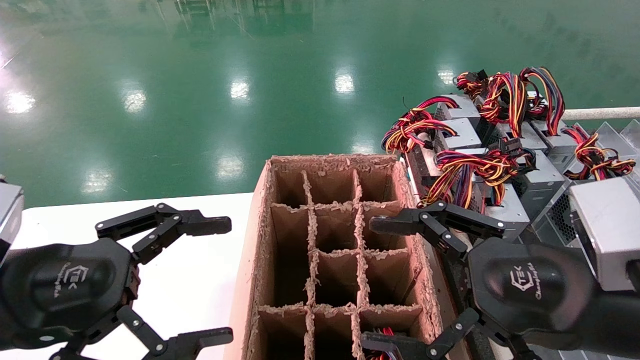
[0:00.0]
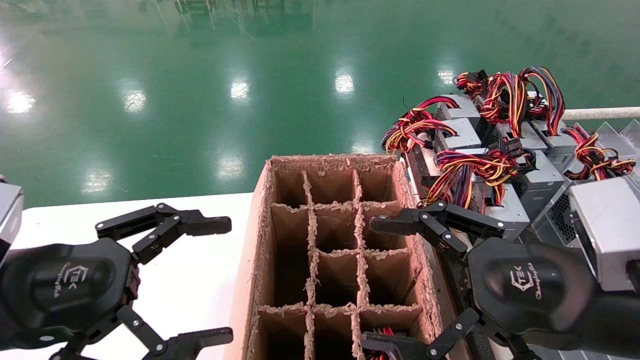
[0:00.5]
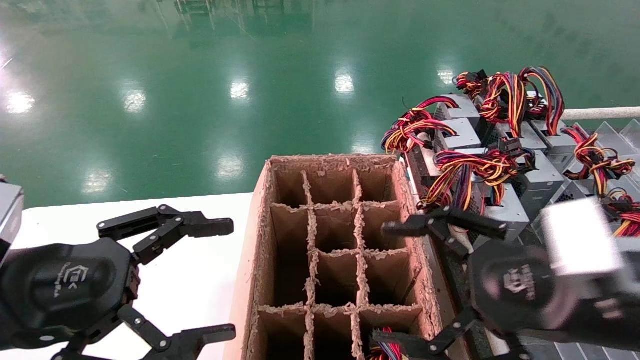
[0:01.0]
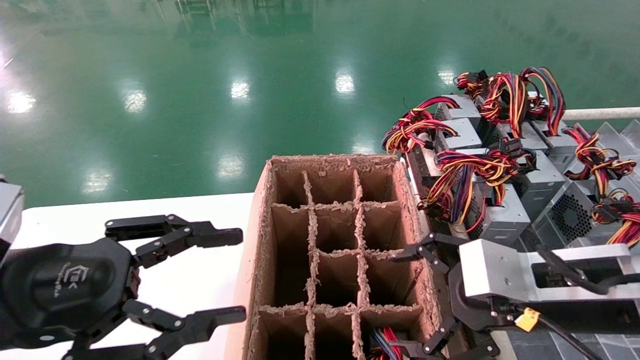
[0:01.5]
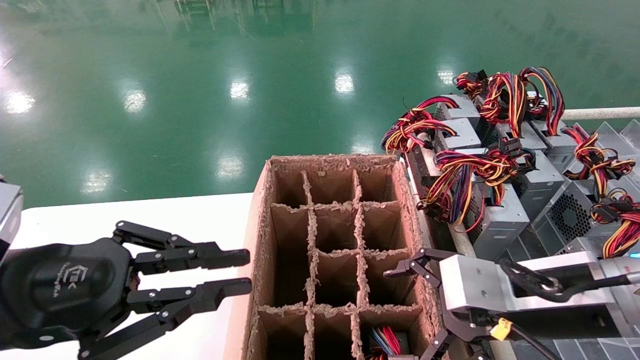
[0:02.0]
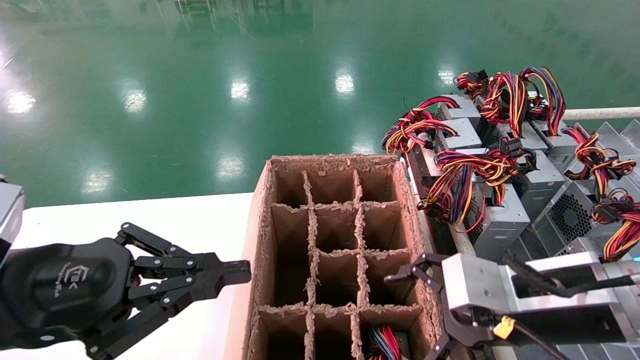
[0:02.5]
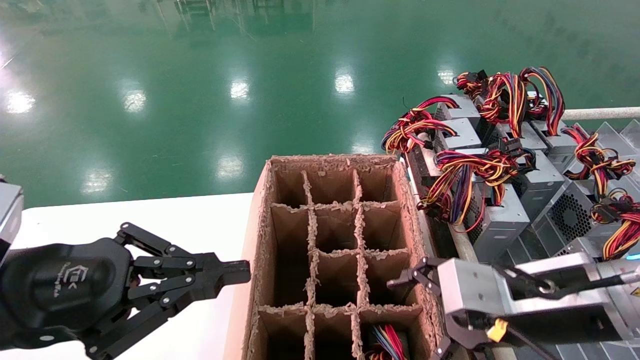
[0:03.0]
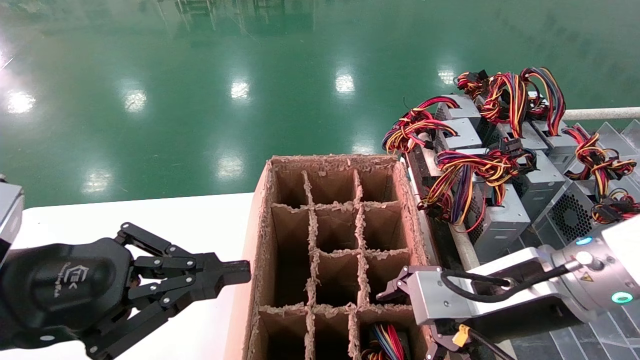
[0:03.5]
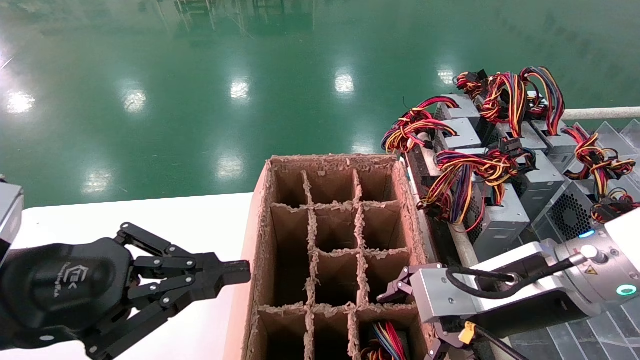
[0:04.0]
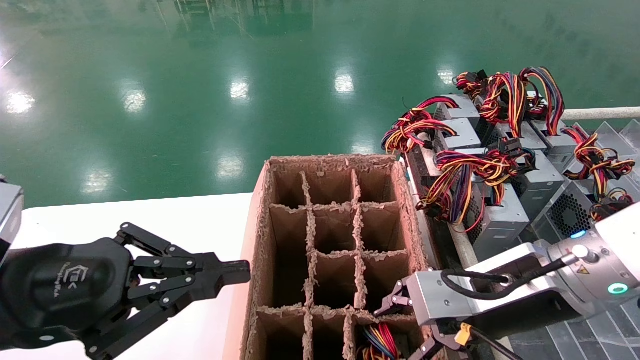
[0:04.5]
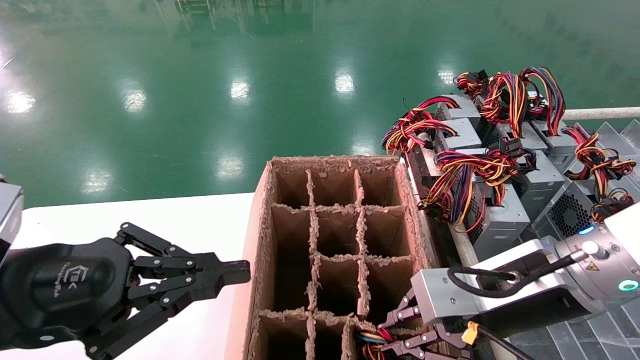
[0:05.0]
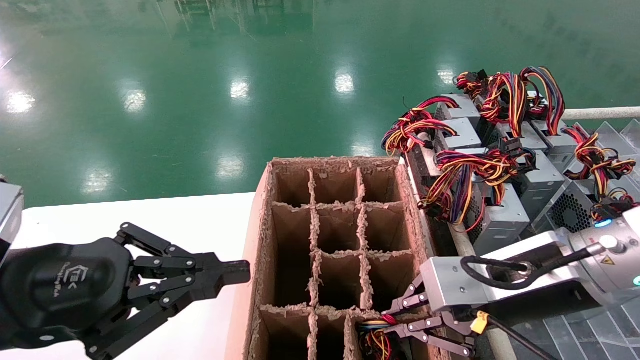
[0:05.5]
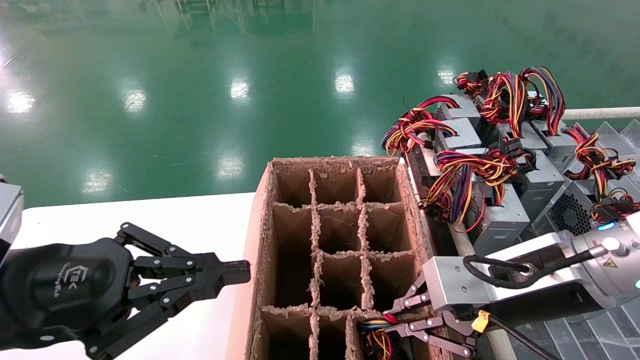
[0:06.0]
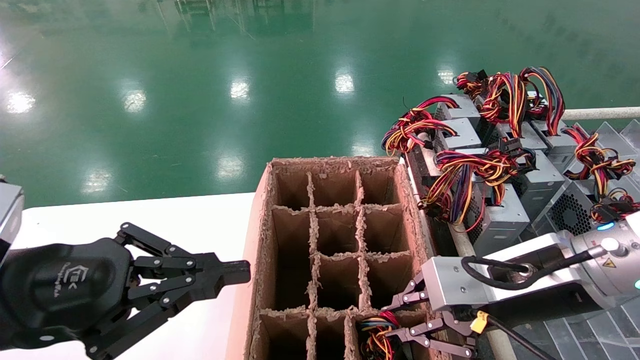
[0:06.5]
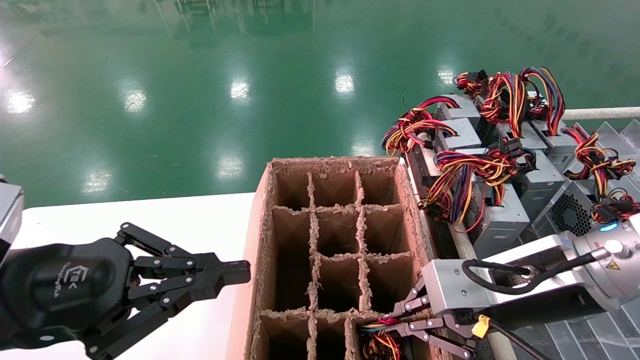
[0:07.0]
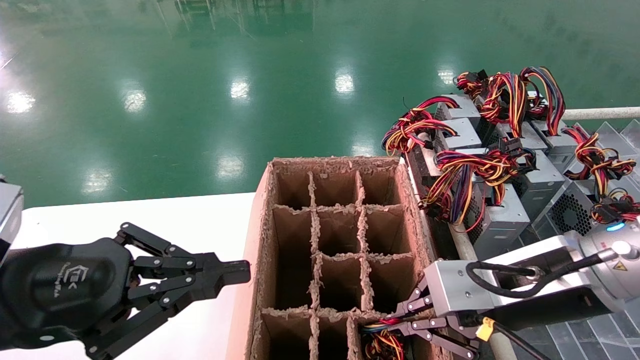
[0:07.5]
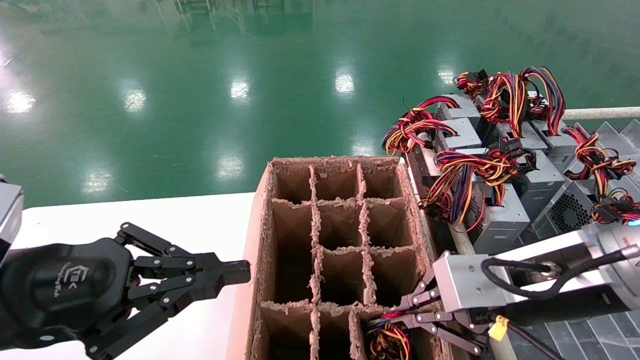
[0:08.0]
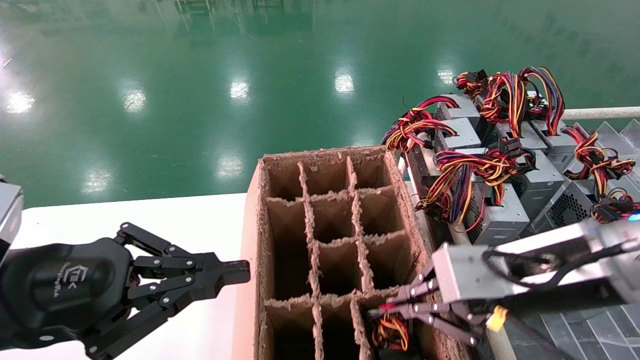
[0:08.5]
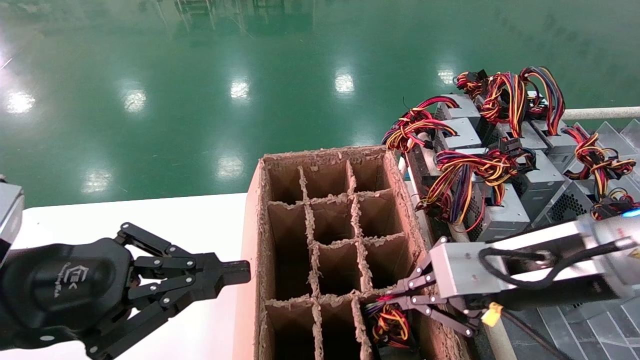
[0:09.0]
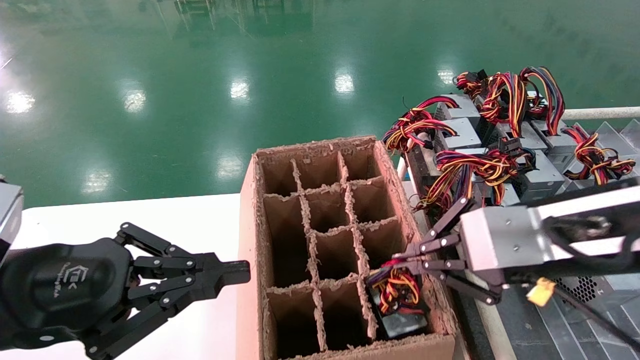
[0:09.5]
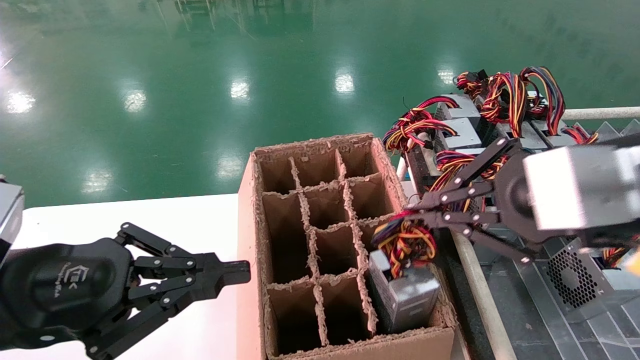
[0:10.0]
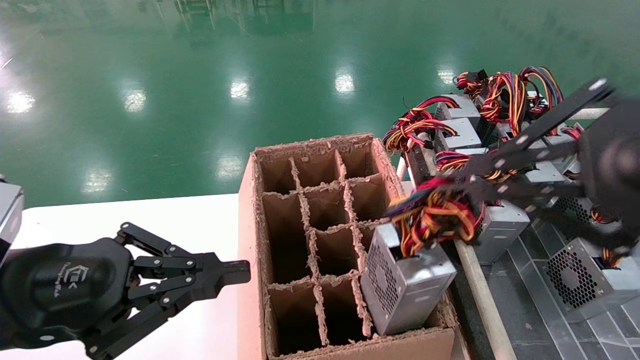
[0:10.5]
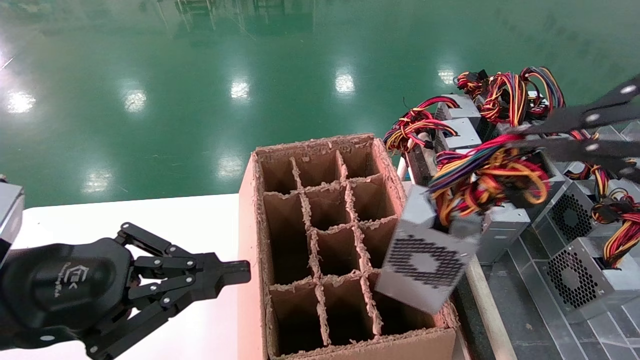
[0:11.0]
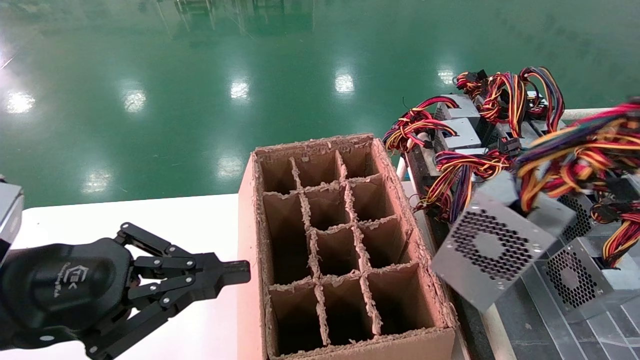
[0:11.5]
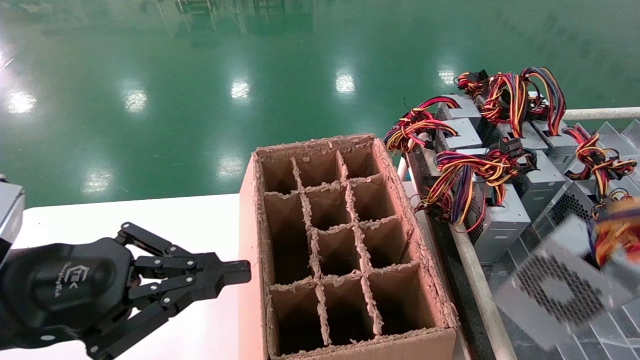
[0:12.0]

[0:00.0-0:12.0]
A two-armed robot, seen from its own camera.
Step, 0:01.5 to 0:07.5: Grab the main unit power supply from the containment box.
0:00.0 to 0:02.0: The right gripper travels forward by roughly 5 cm; the left gripper closes.
0:02.0 to 0:04.0: The grippers move only a little.
0:04.0 to 0:06.0: The right gripper closes up.
0:06.0 to 0:08.0: There are only small adjustments of the grippers.
0:08.0 to 0:10.0: The right gripper is displaced upward and backward by approximately 10 cm.
0:10.0 to 0:12.0: The right gripper travels backward and to the right by roughly 25 cm.

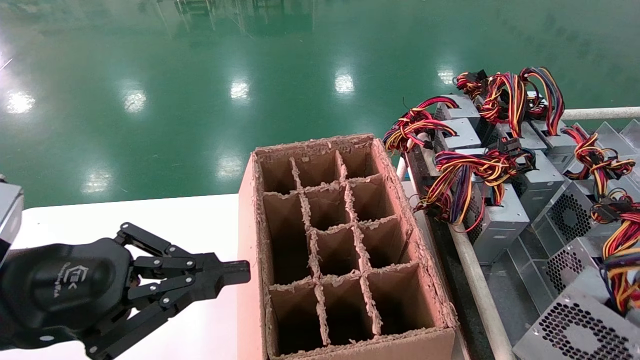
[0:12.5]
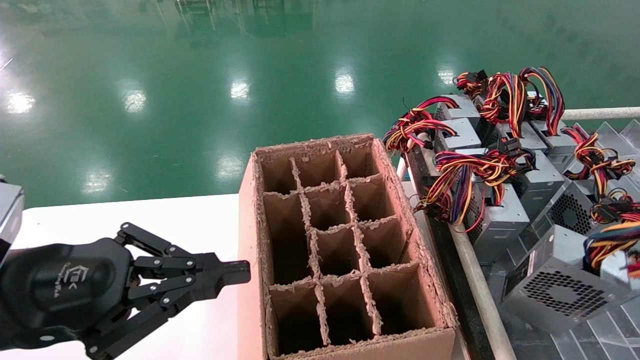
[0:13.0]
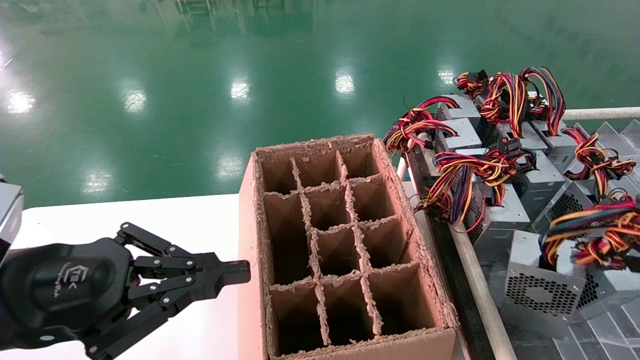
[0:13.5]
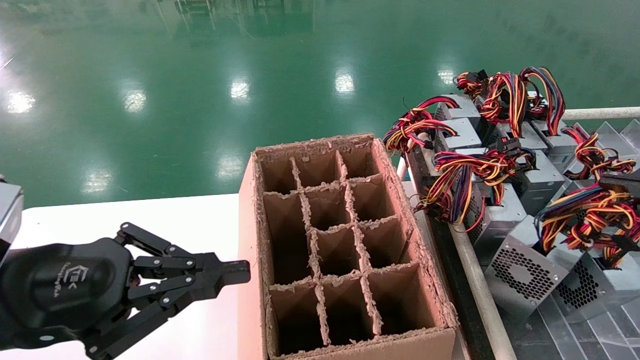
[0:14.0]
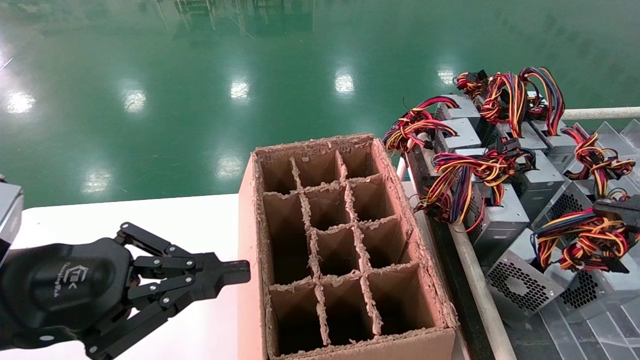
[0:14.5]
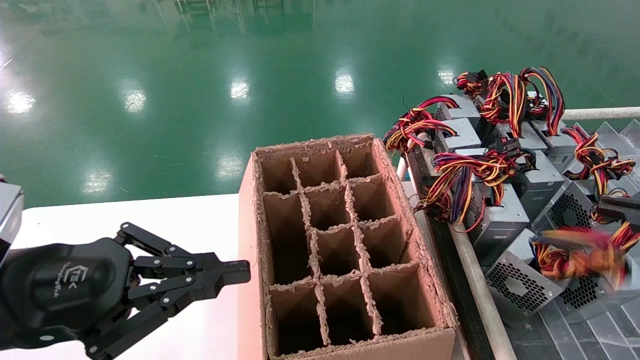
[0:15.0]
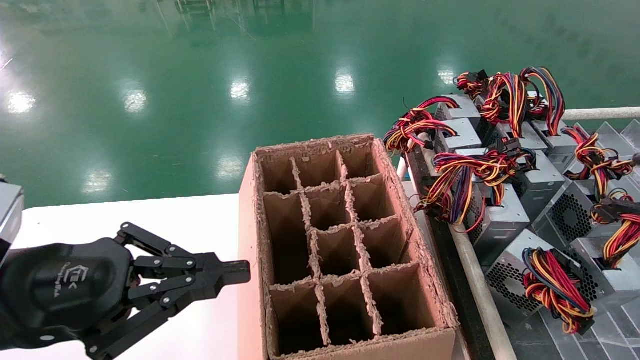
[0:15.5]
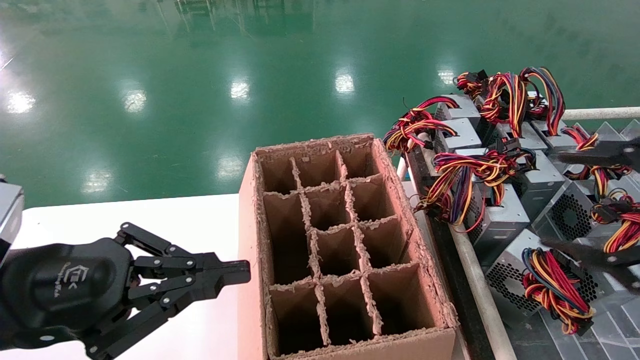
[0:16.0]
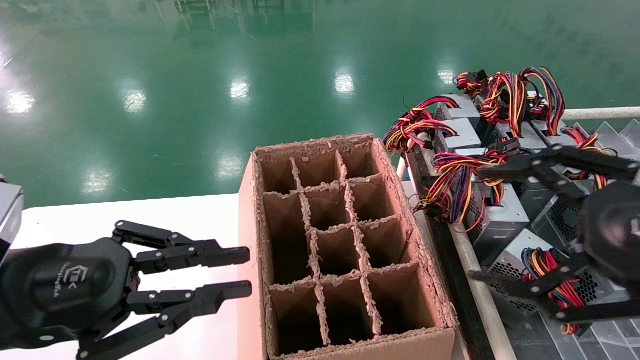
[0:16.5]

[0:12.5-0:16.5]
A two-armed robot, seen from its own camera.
Step, 0:12.5 to 0:15.0: Place the main unit power supply in the designated area.
0:12.5 to 0:14.5: The right gripper goes about 10 cm forward.
0:14.5 to 0:16.5: The right gripper moves to the left, about 10 cm, and opens.

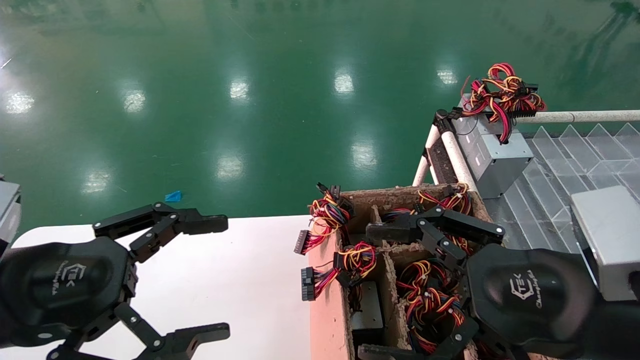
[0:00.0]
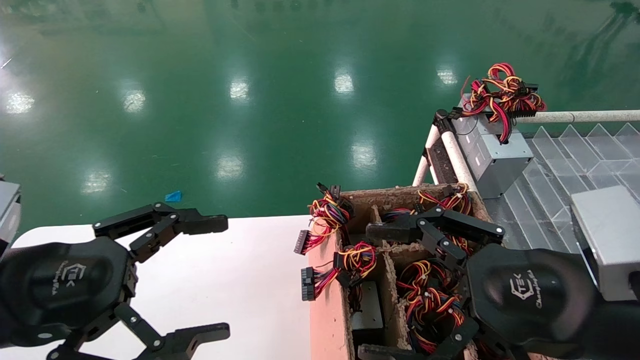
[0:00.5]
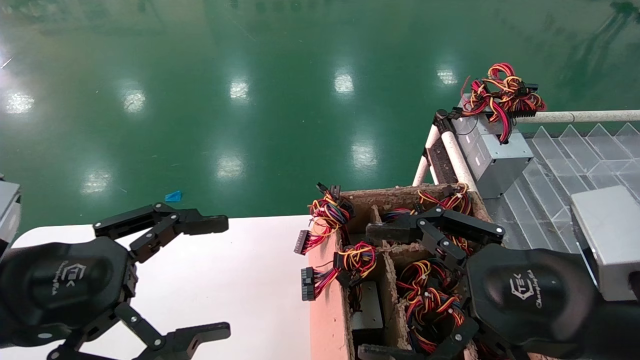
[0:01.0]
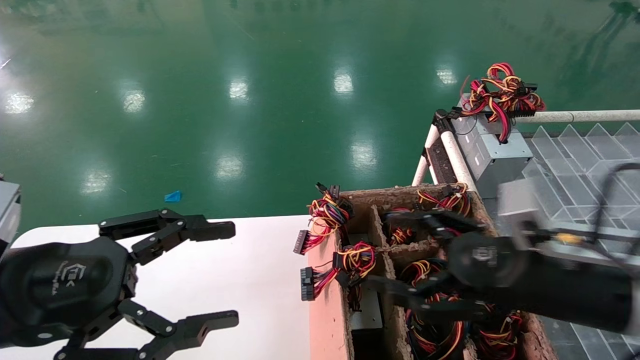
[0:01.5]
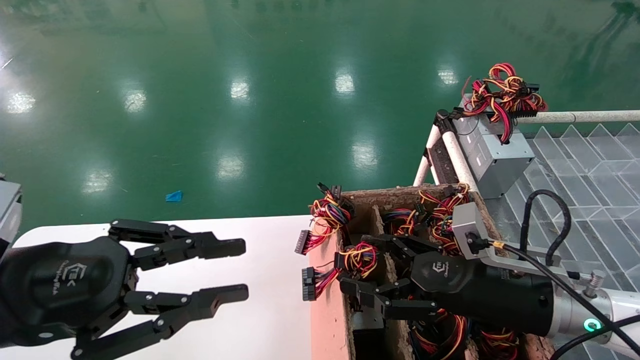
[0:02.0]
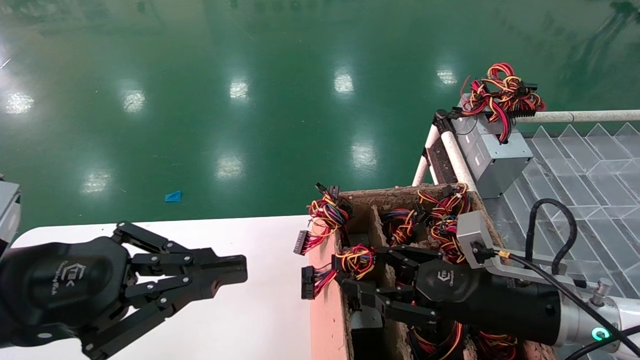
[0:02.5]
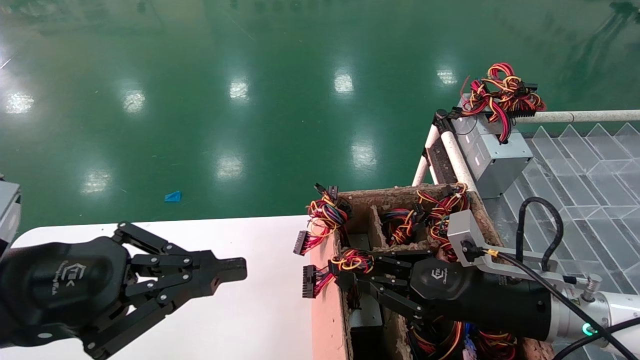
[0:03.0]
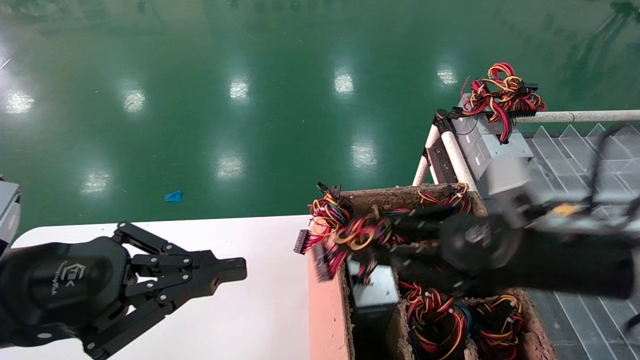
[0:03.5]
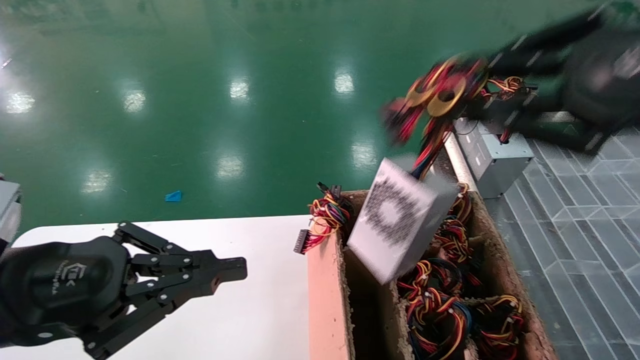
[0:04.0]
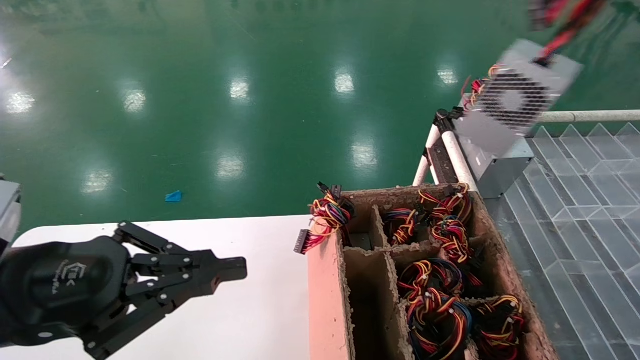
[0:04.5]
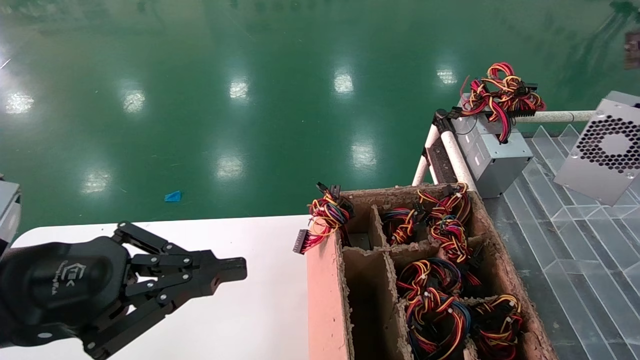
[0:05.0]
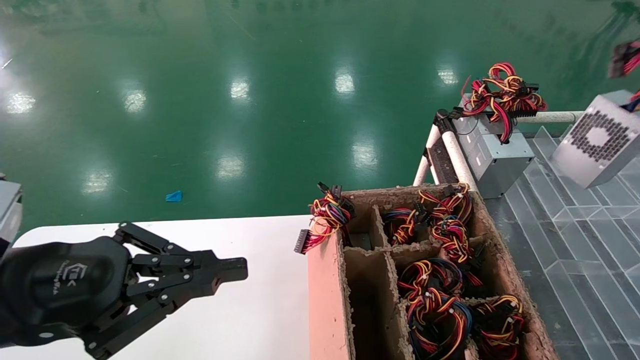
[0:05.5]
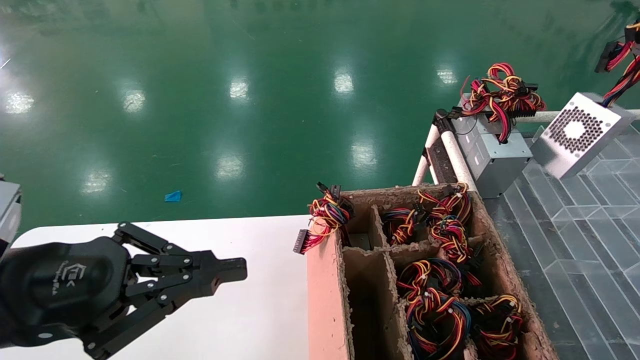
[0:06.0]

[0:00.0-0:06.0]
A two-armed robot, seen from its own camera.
Step, 0:01.5 to 0:03.0: Grab the main unit power supply from the containment box.
0:00.0 to 0:02.0: The right gripper is displaced forward and downward by approximately 15 cm, while the left gripper closes its fingers.
0:02.0 to 0:04.0: The left gripper closes up. The right gripper is displaced upward and backward by roughly 30 cm, and closes.
0:04.0 to 0:06.0: The right gripper goes approximately 25 cm to the right and forward.
